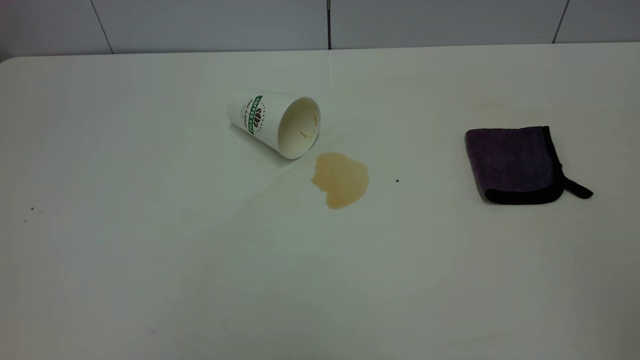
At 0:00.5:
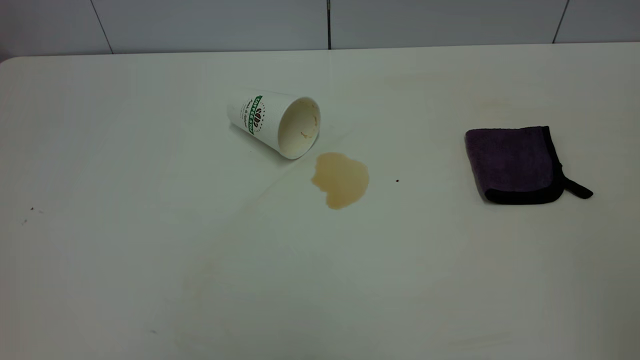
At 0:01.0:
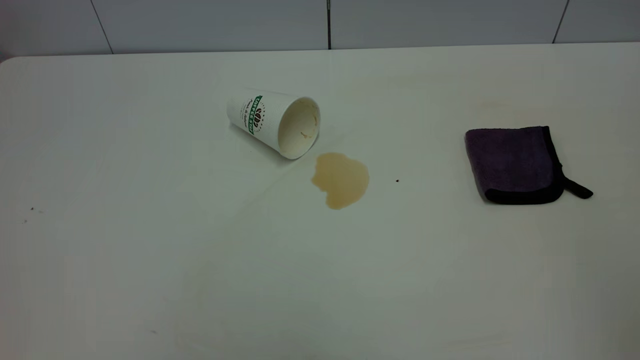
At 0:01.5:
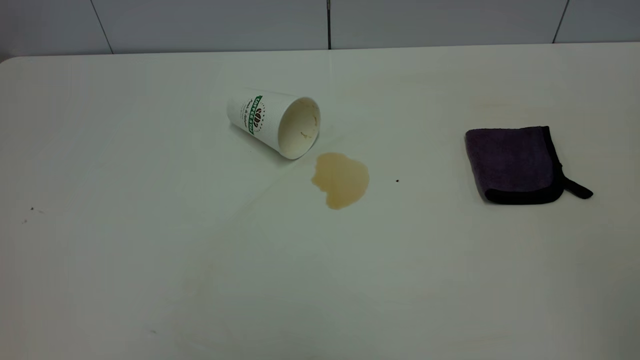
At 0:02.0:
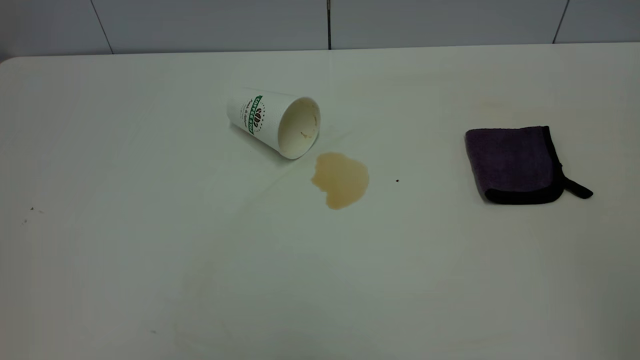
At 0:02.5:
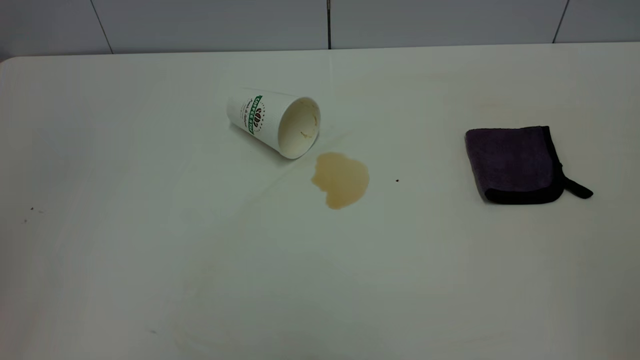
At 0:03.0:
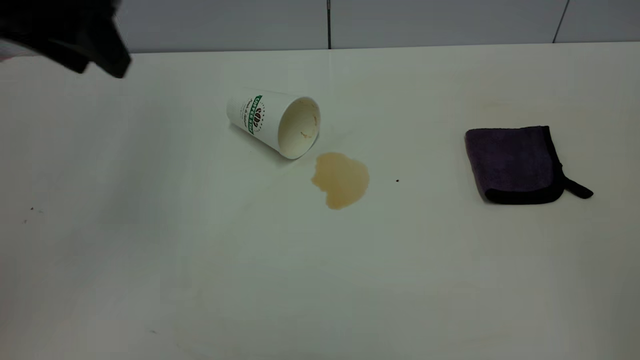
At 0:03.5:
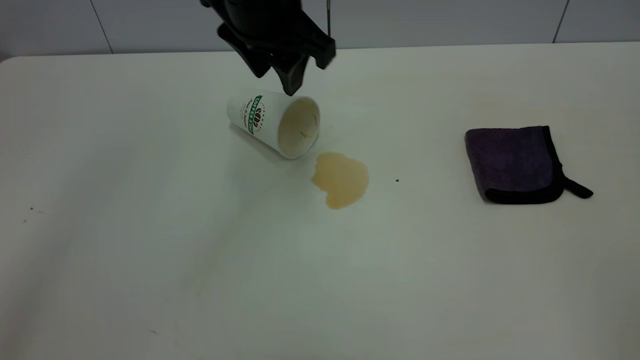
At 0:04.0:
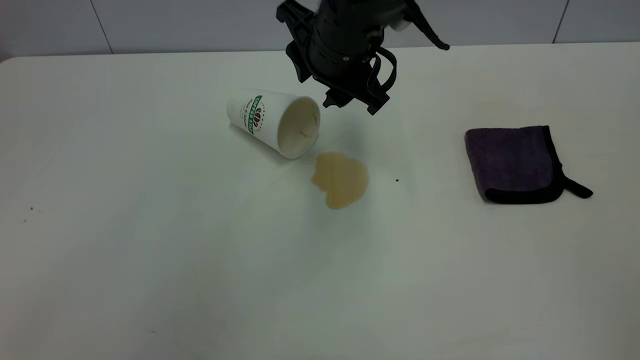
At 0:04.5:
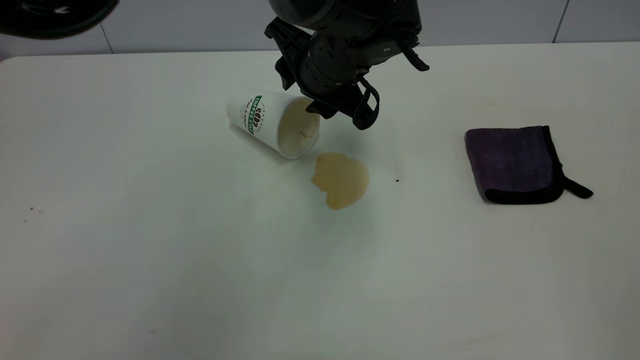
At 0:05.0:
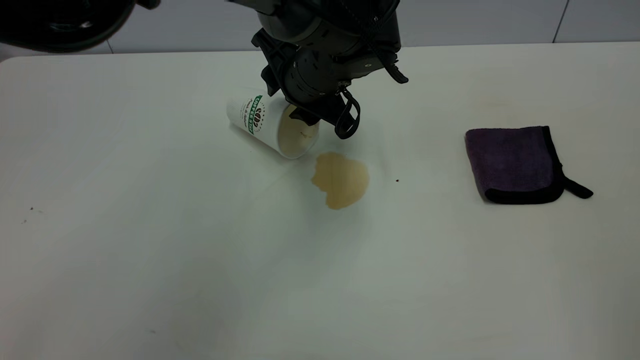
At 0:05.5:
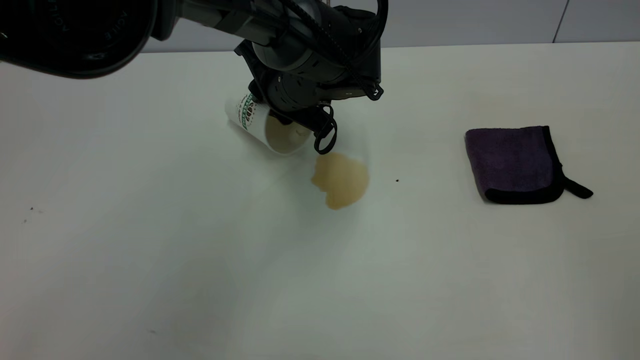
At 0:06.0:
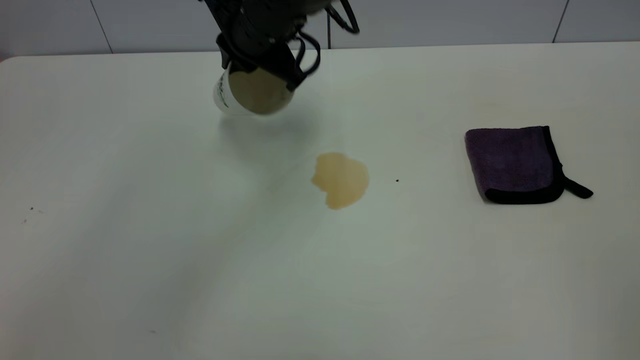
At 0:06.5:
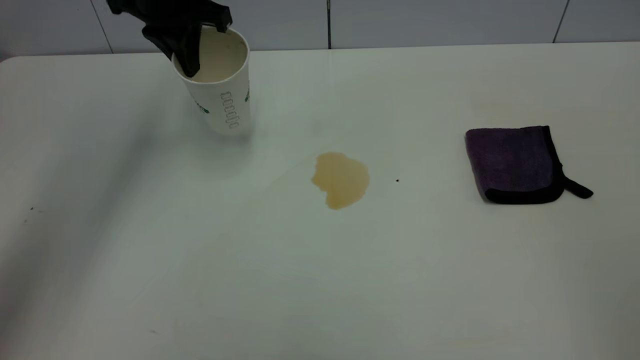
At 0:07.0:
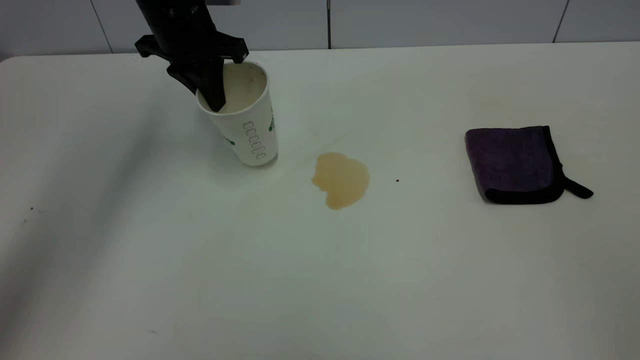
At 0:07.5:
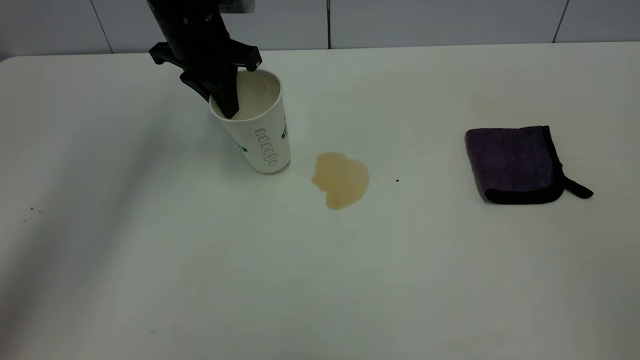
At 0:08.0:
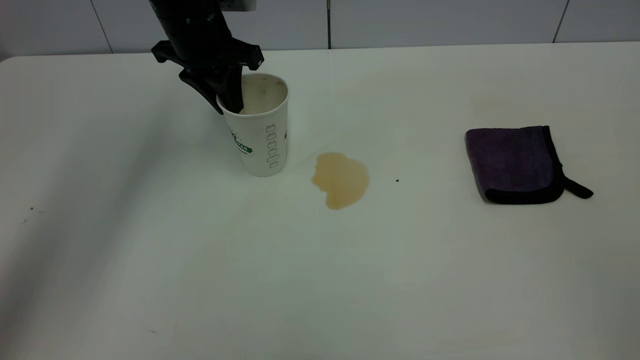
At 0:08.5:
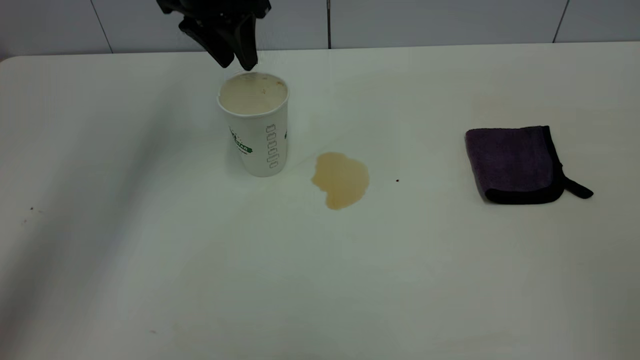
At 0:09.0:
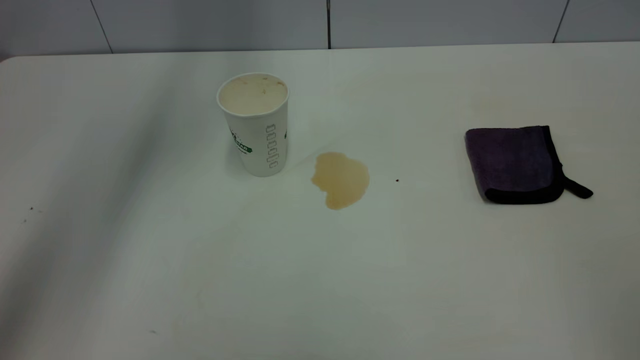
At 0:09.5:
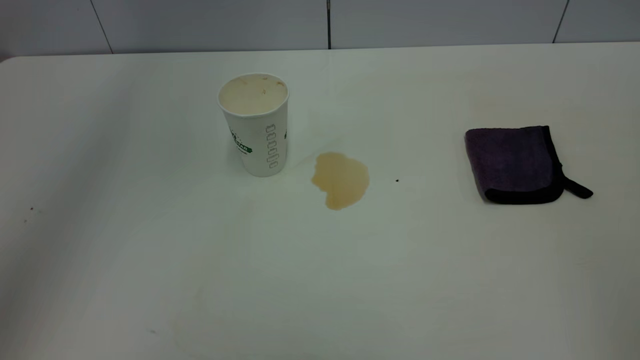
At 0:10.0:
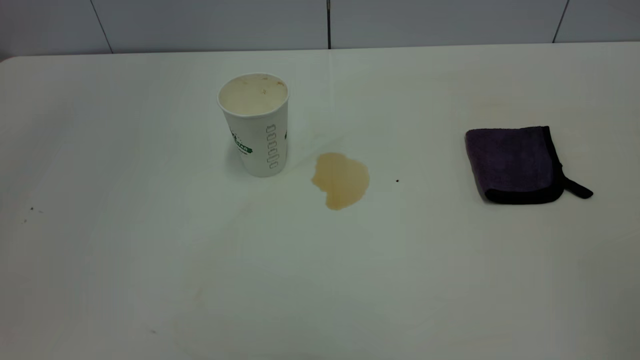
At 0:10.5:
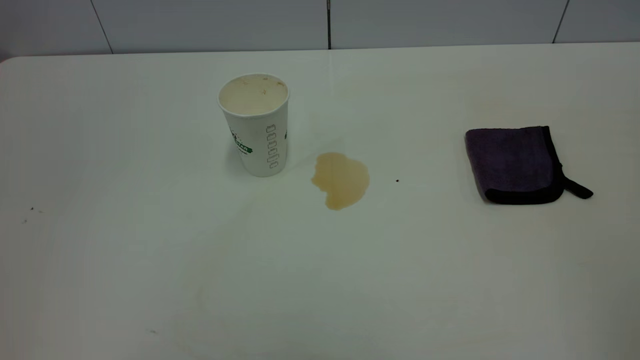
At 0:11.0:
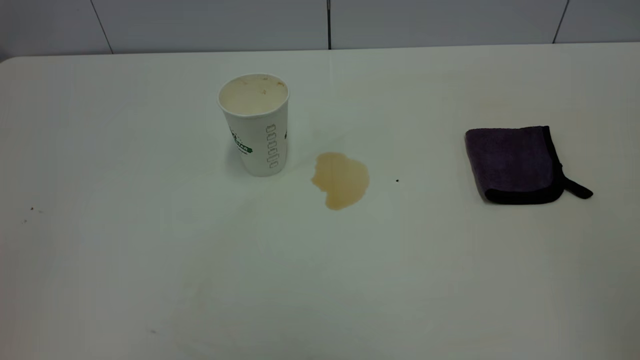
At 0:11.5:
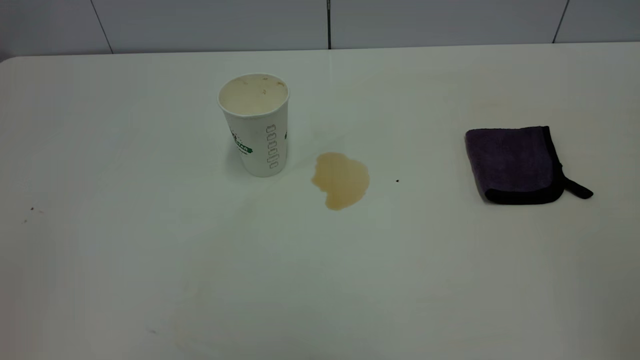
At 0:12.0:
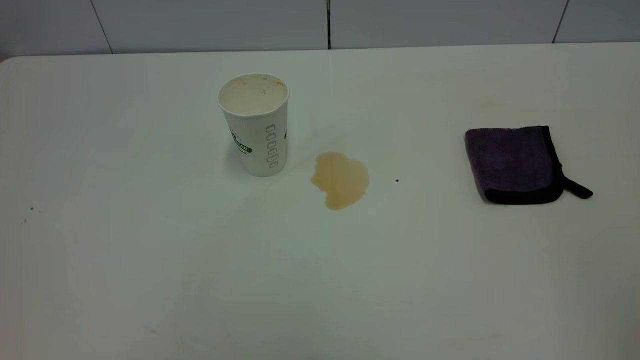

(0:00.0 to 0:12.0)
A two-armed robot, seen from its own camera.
Task of the whole recording: the left gripper pick up the fallen cup and place it upright, the right gripper grasp the purple rag and wipe the tea stain on the table, the right gripper put the purple rag back in its original position.
Step, 0:00.0 - 0:08.5: Stand the paper cup upright.
0:02.0 - 0:04.0: The left gripper is displaced forward, to the right and downward by roughly 50 cm.
0:04.0 - 0:06.0: The left gripper is displaced to the left by some 10 cm, goes downward and returns, approximately 5 cm each way, and closes its fingers.
0:06.0 - 0:08.0: The left gripper goes about 10 cm to the left, and opens up.
0:08.0 - 0:10.0: The left gripper shifts some 50 cm upward and backward, and opens its fingers.

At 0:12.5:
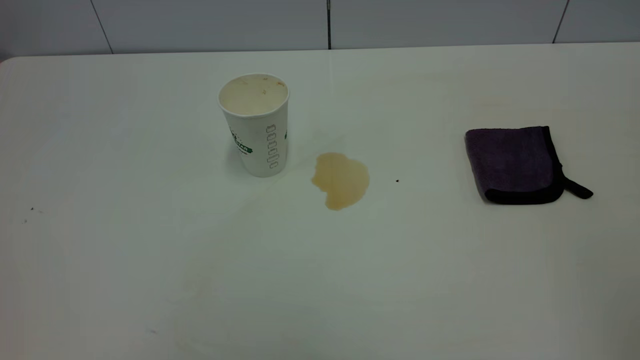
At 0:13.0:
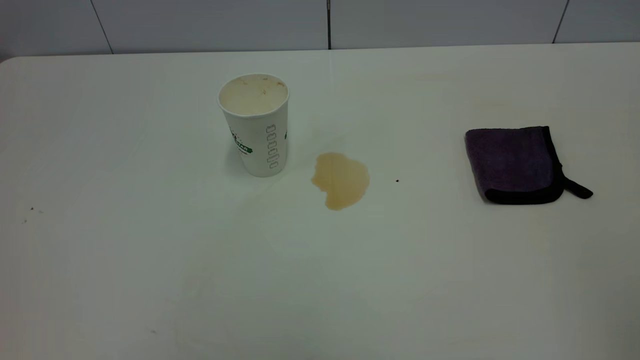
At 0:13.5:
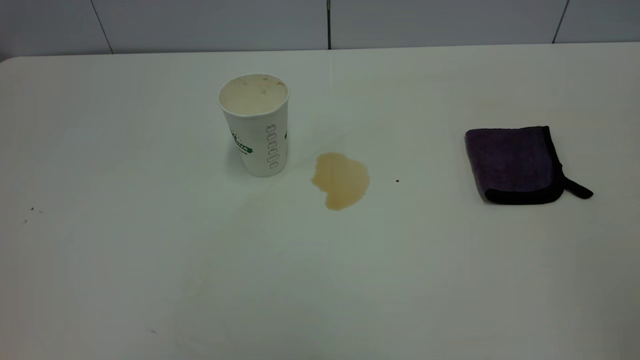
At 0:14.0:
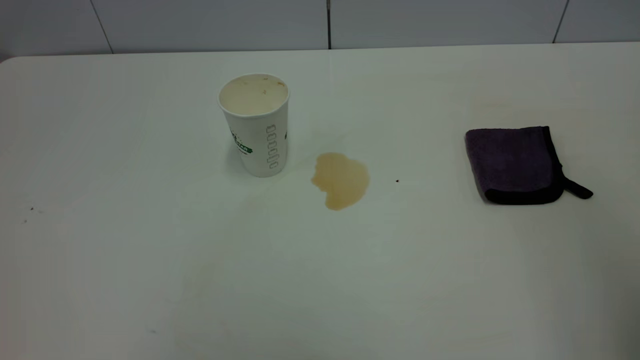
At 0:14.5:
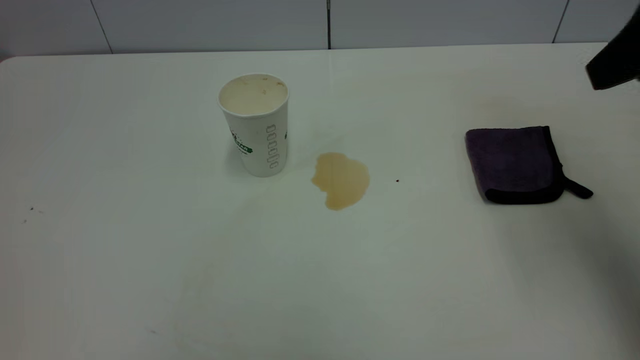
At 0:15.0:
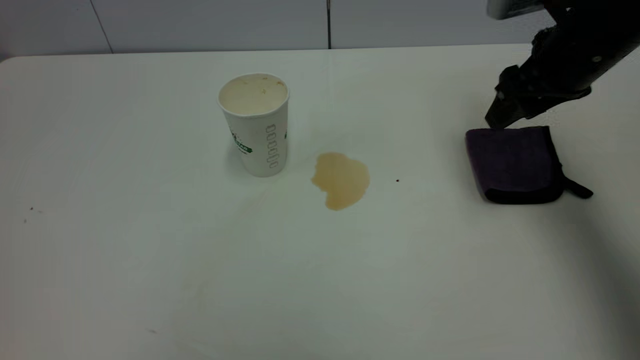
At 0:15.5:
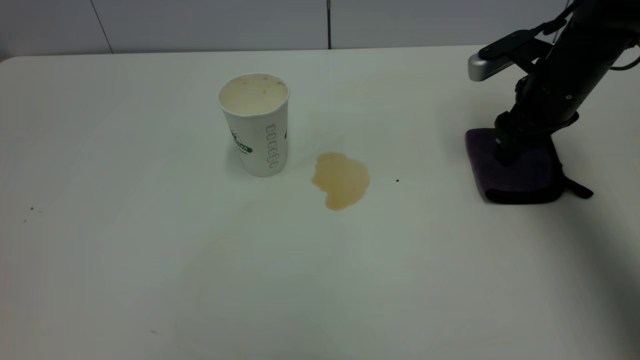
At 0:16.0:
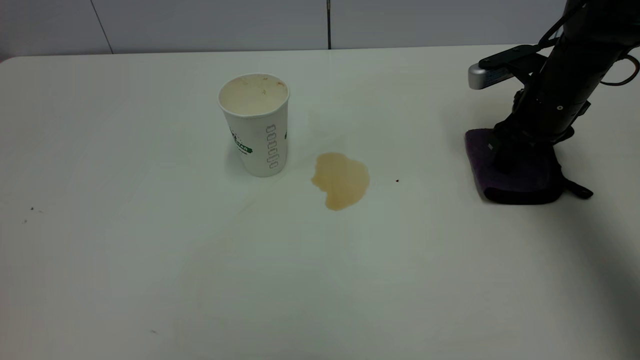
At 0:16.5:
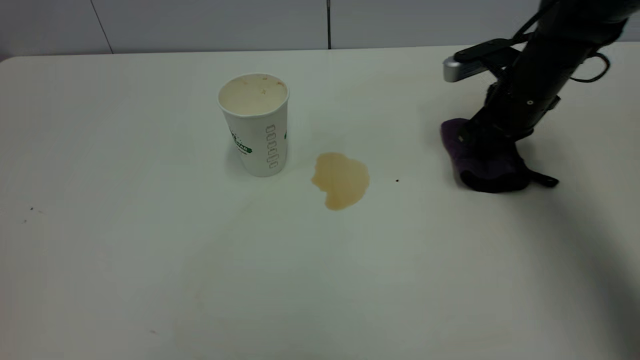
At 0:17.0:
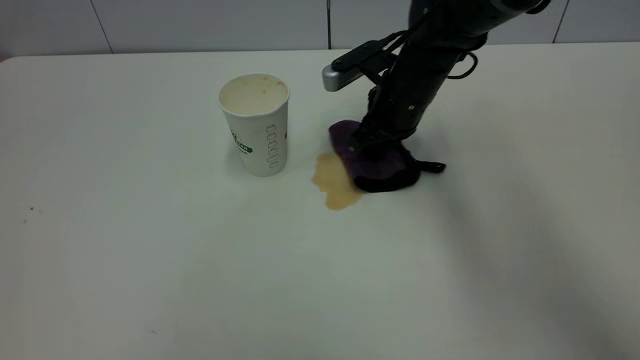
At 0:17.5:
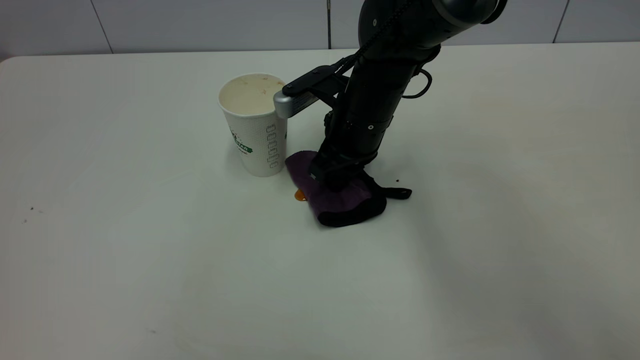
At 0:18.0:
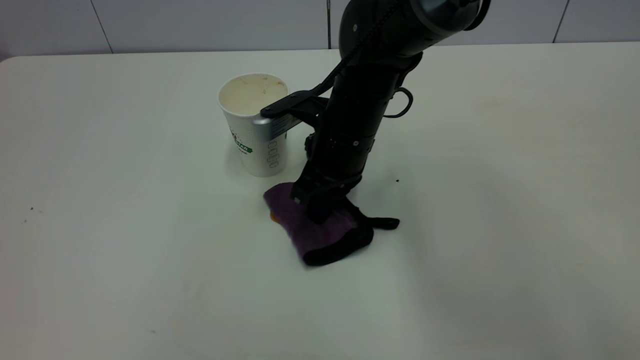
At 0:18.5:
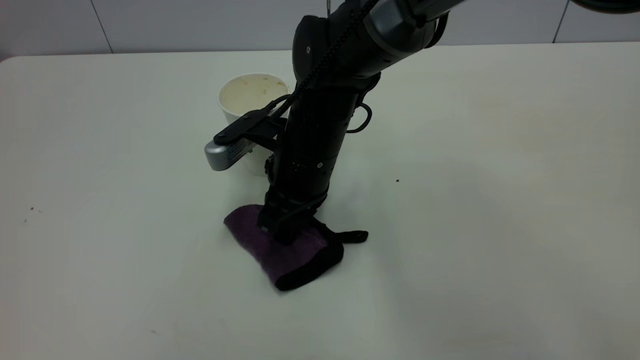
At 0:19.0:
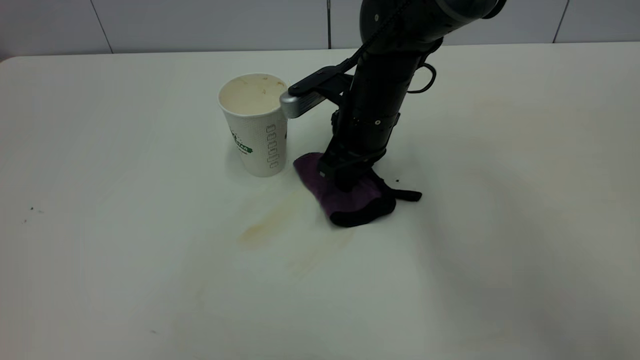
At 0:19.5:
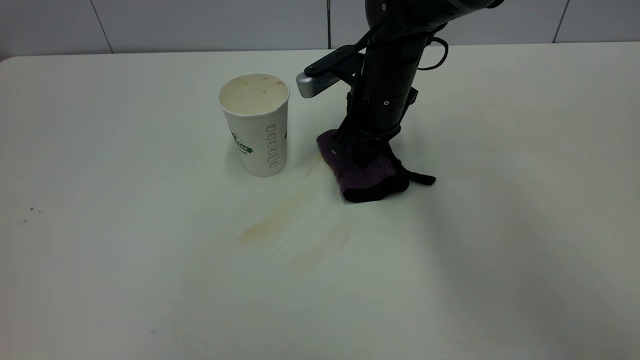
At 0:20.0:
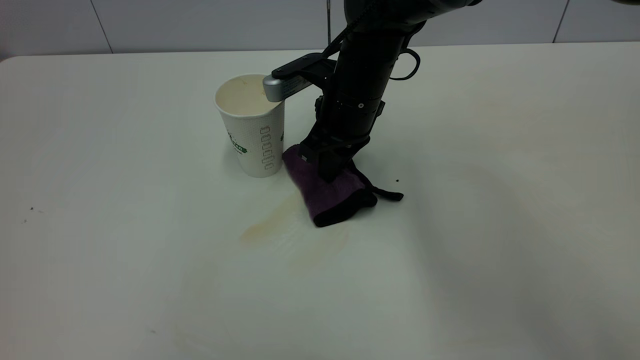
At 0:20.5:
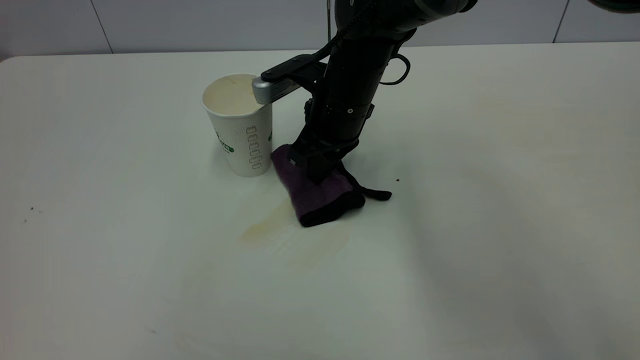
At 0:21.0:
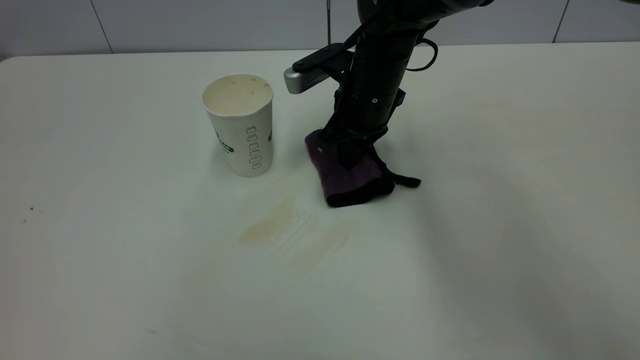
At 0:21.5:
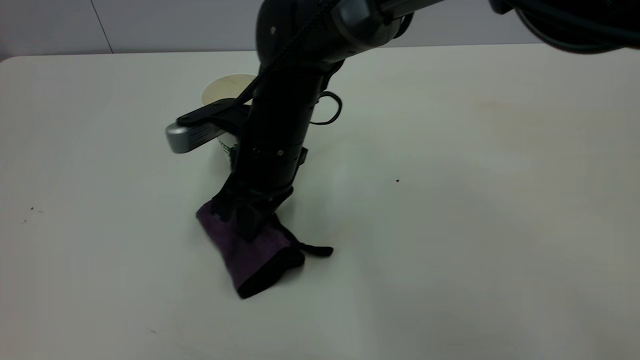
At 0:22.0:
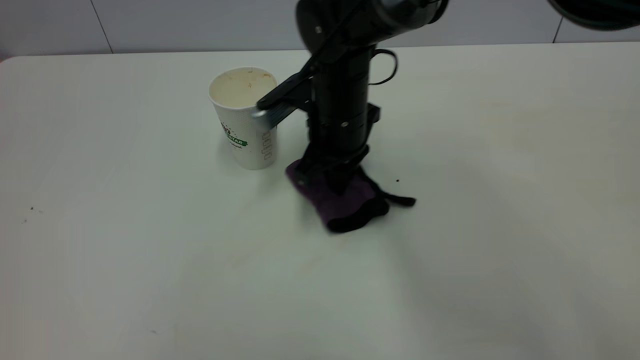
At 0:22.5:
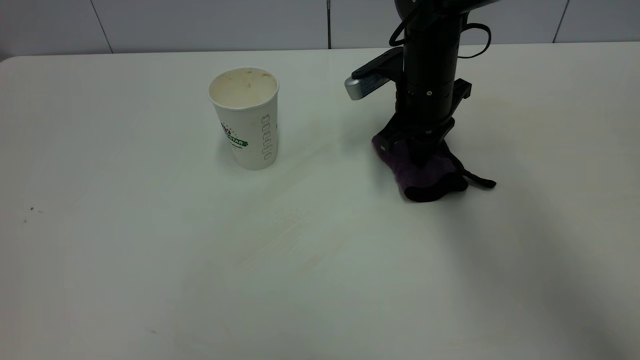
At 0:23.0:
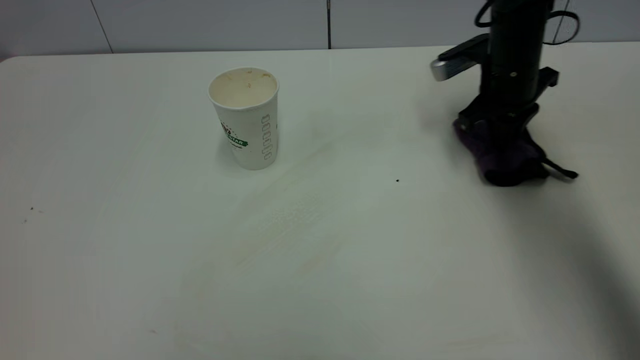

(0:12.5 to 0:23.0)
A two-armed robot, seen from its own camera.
Task of the whole recording: the left gripper pick up the fallen cup and place it upright, the right gripper grasp the purple rag and wipe the tea stain on the table, the right gripper put the purple rag back in its original position.
0:12.5 - 0:14.5: The right gripper heads forward, covering some 30 cm, and opens.
0:14.5 - 0:16.5: The right gripper travels downward and forward by some 25 cm, and closes up.
0:16.5 - 0:19.0: The right gripper shifts about 15 cm to the left.
0:19.0 - 0:21.0: The grippers make only small movements.
0:21.0 - 0:23.0: The right gripper goes some 20 cm to the right.
